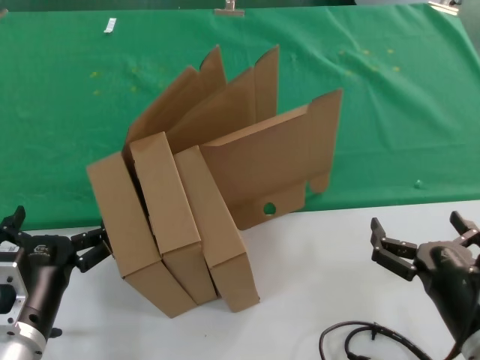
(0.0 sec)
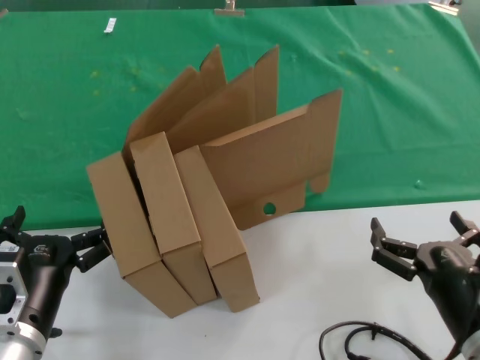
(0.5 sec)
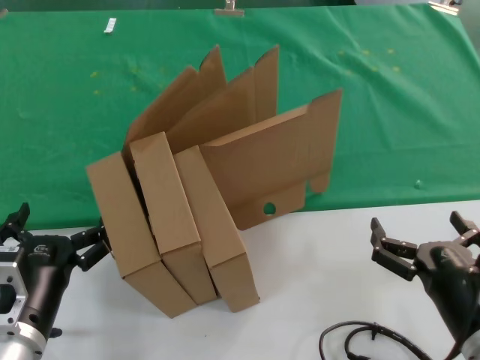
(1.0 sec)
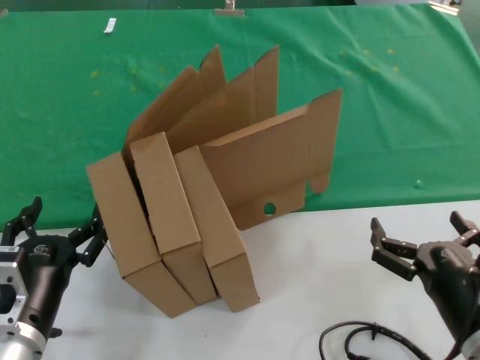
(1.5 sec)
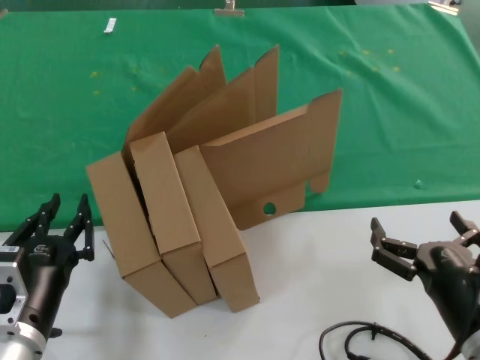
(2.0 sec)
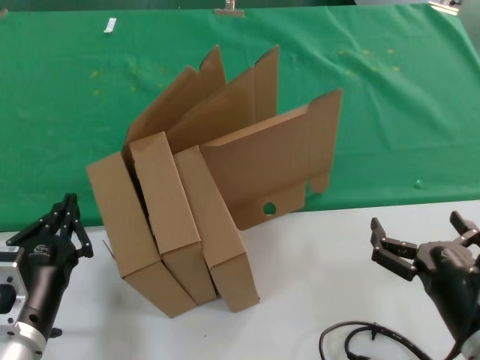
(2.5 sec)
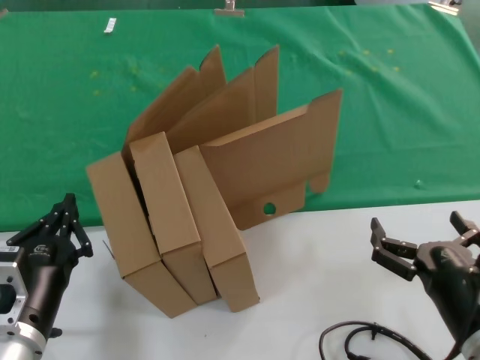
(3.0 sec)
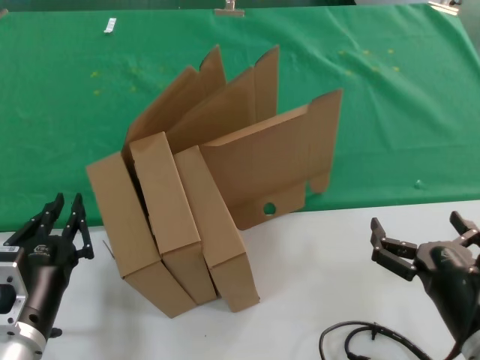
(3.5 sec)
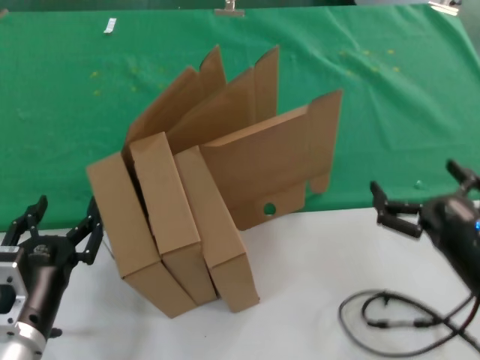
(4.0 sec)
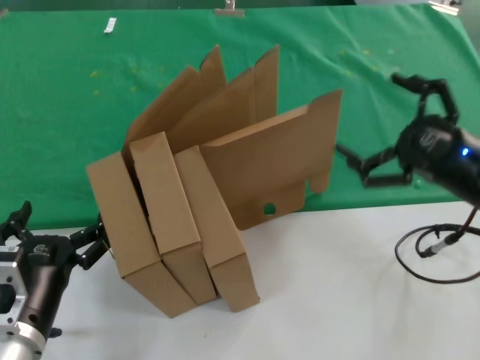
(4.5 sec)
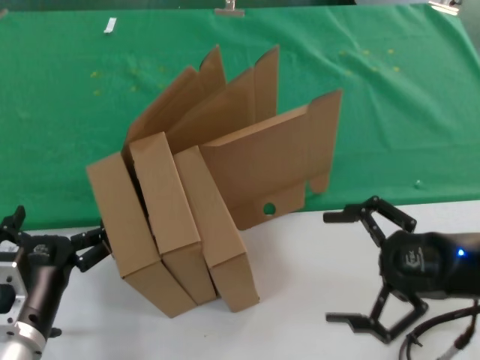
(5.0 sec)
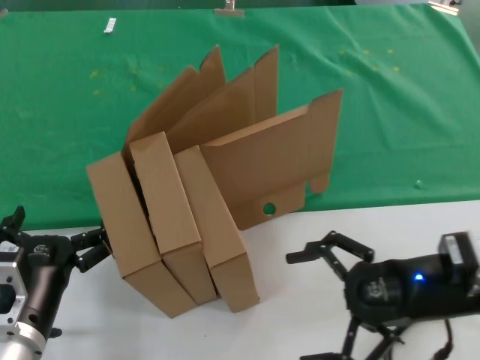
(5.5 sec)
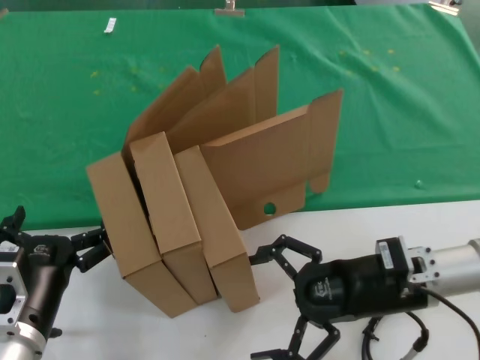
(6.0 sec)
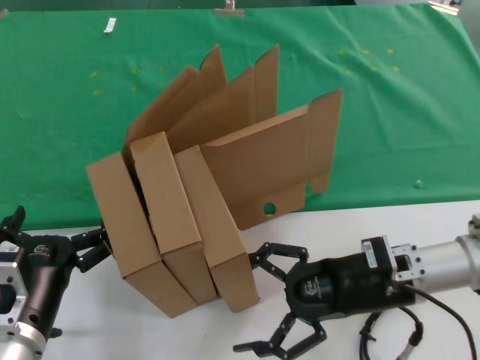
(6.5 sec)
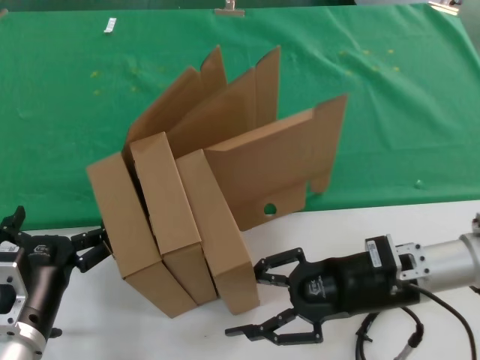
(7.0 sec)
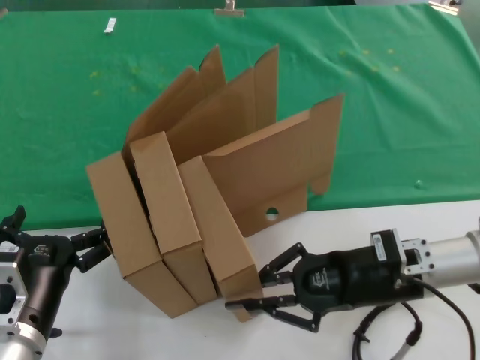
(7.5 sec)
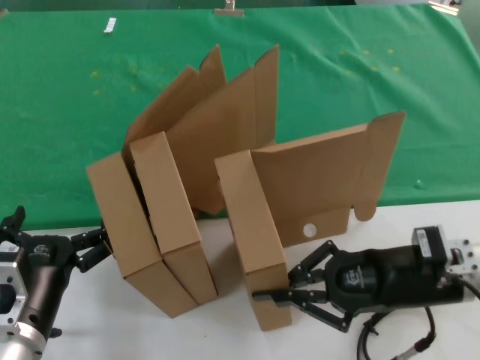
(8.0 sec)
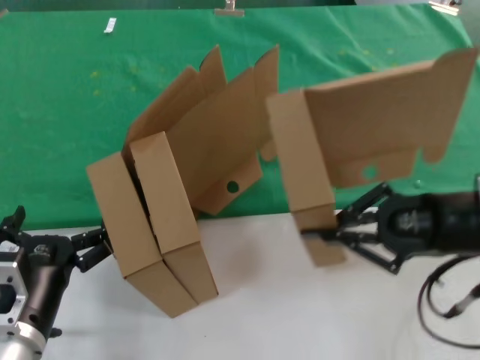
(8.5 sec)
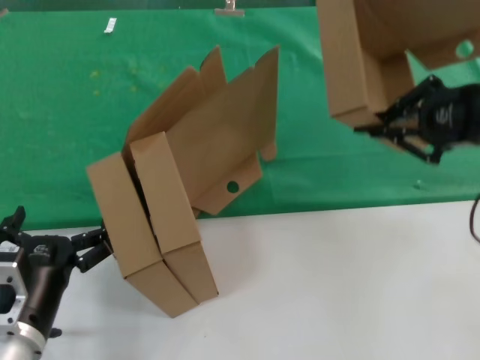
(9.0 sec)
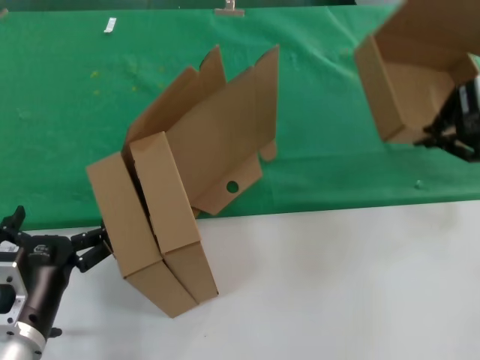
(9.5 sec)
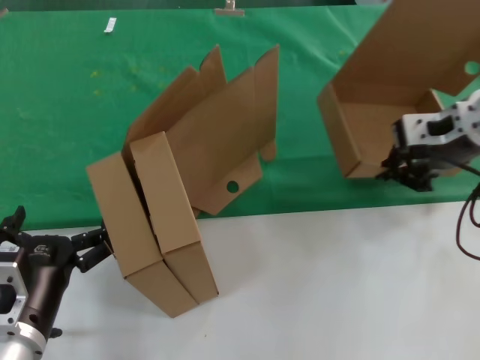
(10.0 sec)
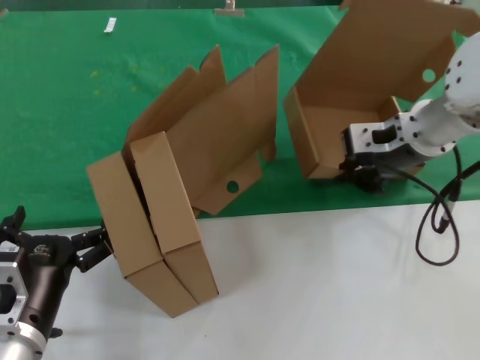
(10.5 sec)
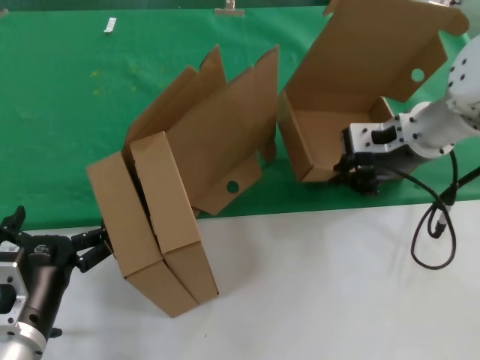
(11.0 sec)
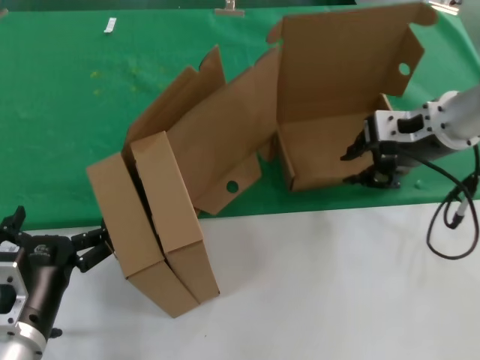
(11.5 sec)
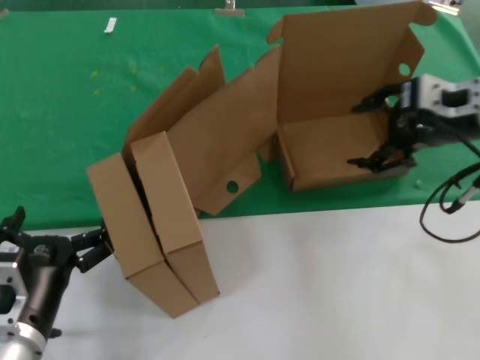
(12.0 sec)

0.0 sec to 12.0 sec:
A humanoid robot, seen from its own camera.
Task of the whole recording: pick up the paper box and put it at the back.
Step, 0.0 sec to 7.5 sec: Grasp the paper box.
Step, 8.0 sec to 11.0 sec: Place the paper box on the table.
0.0 sec to 2.0 sec: Both hands stay put.
2.0 sec to 4.0 sec: The right hand ends up about 5 cm from where it was.
4.0 sec to 6.0 sec: The right hand shifts approximately 10 cm forward.
6.0 sec to 8.0 sec: The hands stay close to where they were, moving slightly.
8.0 sec to 10.0 sec: The right hand is displaced upward by about 20 cm.

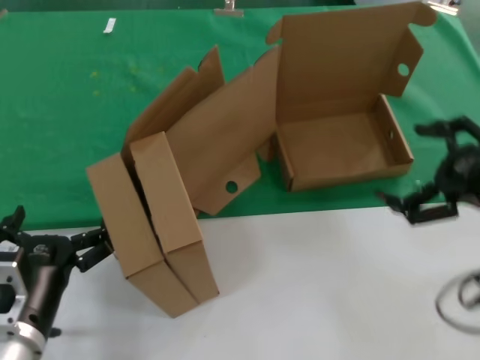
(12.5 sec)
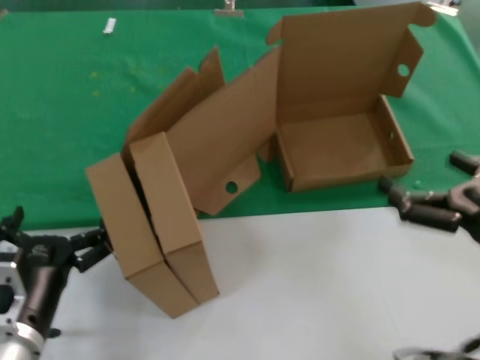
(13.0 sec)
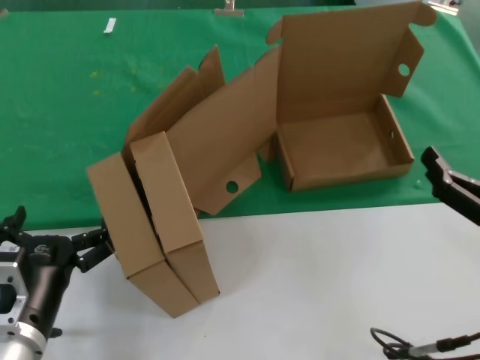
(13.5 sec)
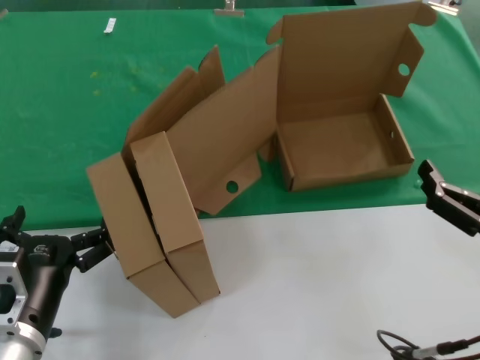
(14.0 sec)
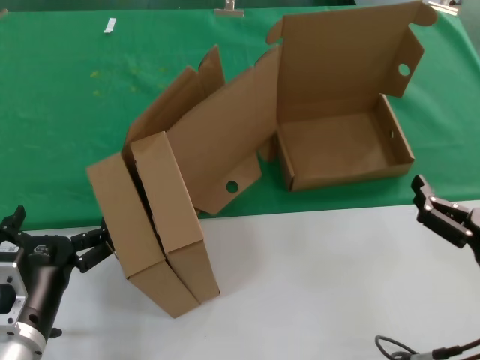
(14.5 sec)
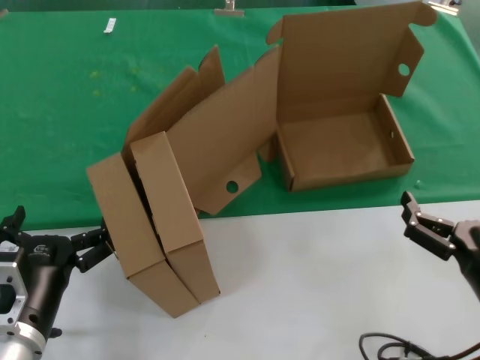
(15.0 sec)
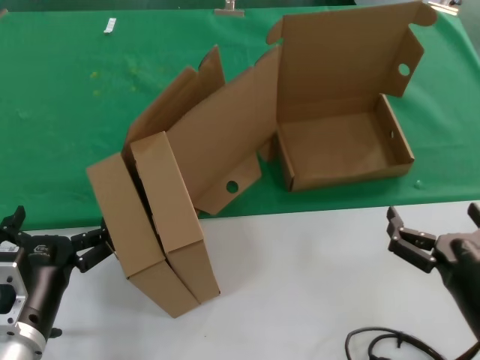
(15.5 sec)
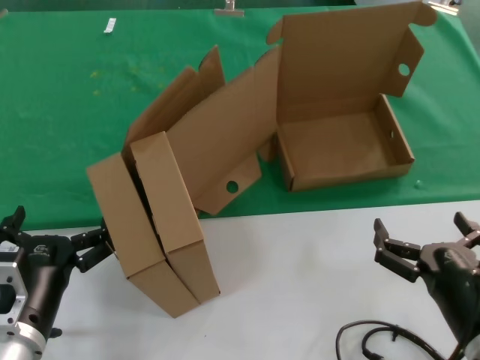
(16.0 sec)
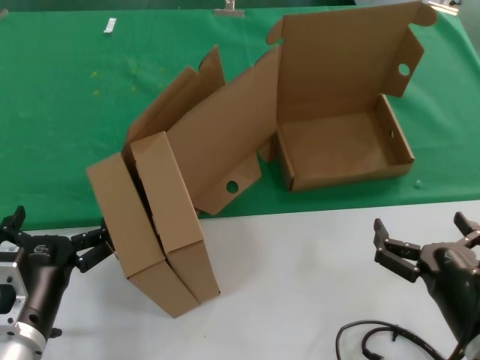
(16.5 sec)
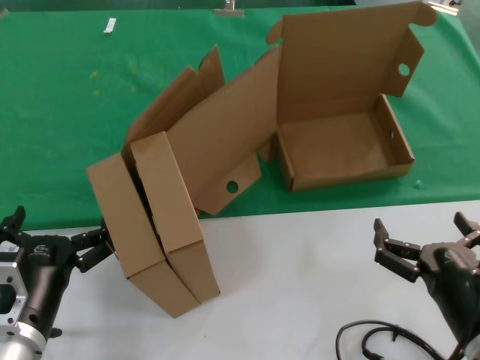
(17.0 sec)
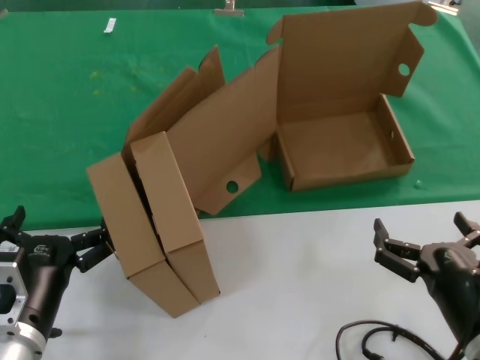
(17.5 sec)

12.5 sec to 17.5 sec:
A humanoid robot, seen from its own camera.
Task of the whole recording: pick up the paper box and put it at the back.
12.5 sec to 15.0 sec: The right hand goes about 20 cm downward, backward and to the left.
15.0 sec to 17.5 sec: The hands stay close to where they were, moving slightly.
